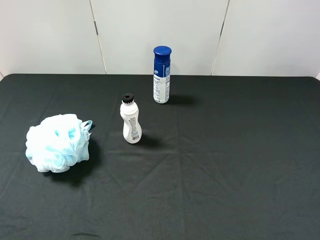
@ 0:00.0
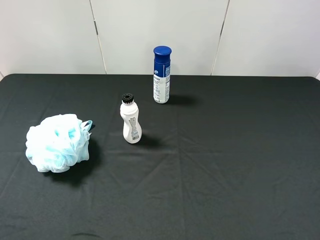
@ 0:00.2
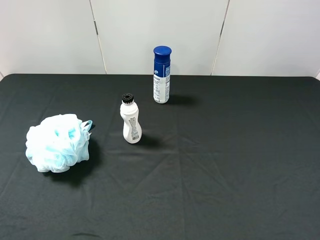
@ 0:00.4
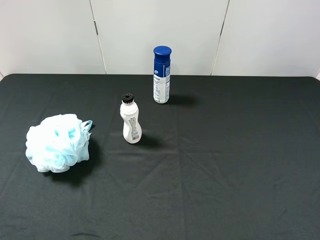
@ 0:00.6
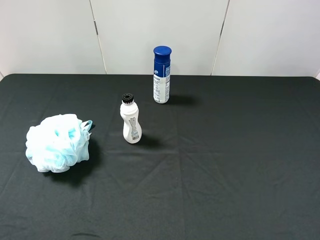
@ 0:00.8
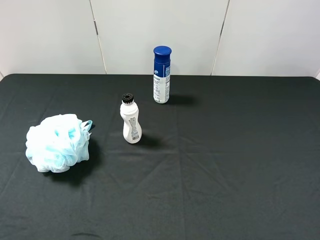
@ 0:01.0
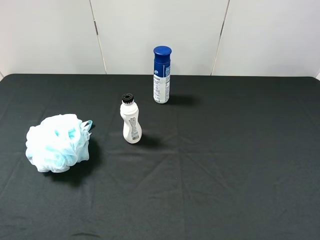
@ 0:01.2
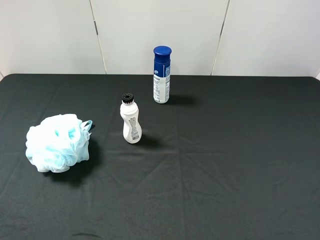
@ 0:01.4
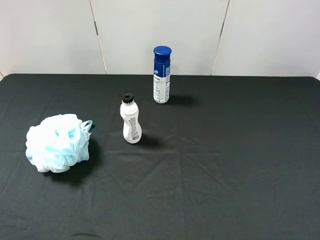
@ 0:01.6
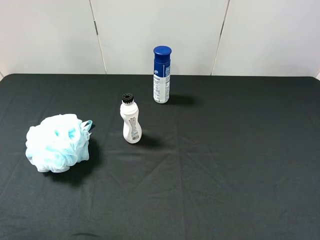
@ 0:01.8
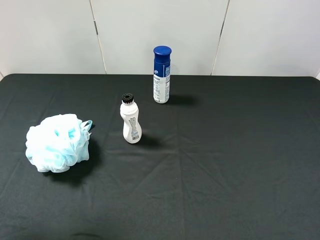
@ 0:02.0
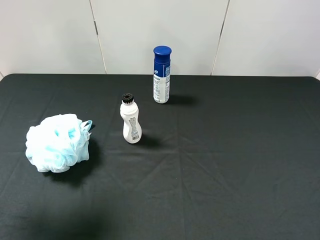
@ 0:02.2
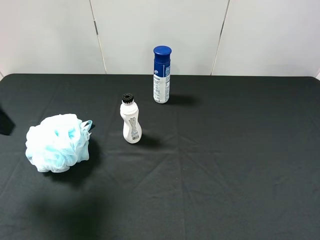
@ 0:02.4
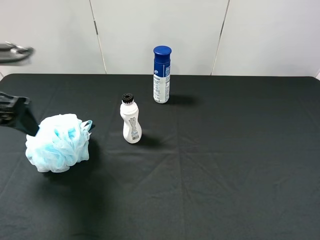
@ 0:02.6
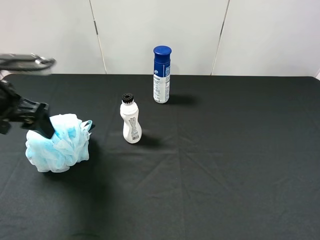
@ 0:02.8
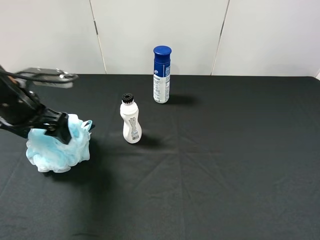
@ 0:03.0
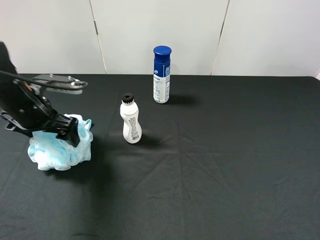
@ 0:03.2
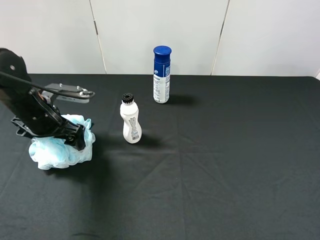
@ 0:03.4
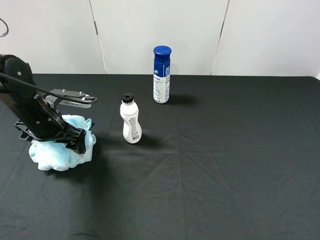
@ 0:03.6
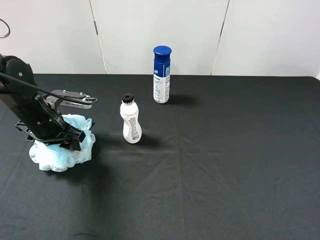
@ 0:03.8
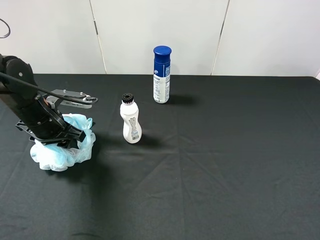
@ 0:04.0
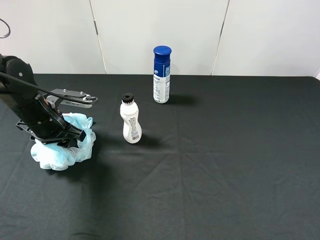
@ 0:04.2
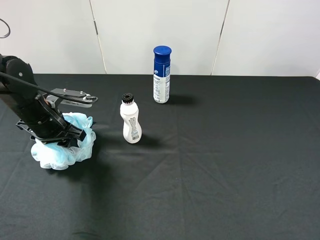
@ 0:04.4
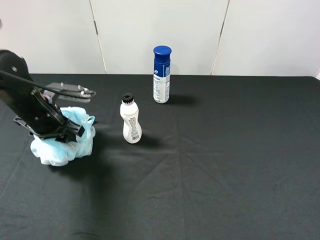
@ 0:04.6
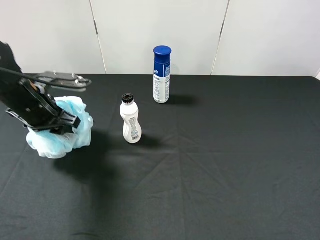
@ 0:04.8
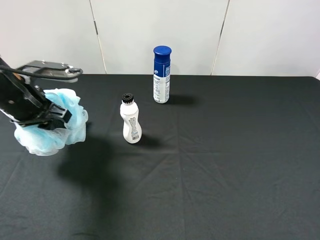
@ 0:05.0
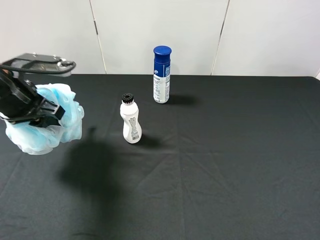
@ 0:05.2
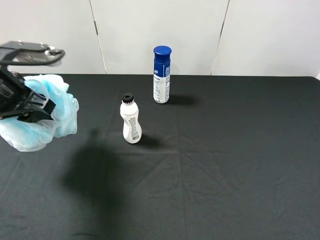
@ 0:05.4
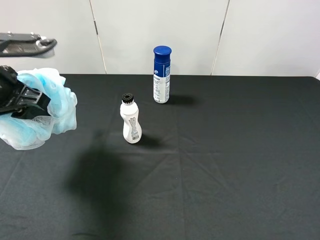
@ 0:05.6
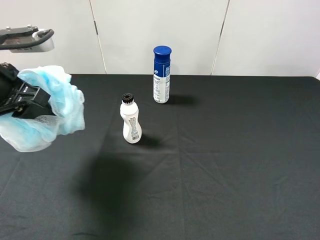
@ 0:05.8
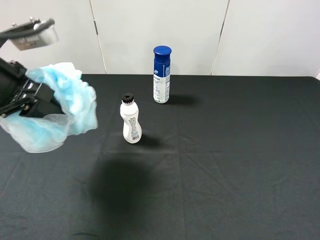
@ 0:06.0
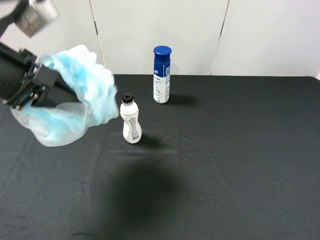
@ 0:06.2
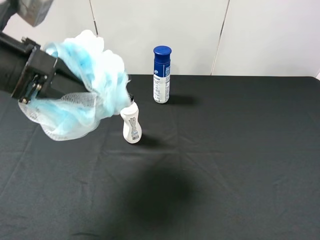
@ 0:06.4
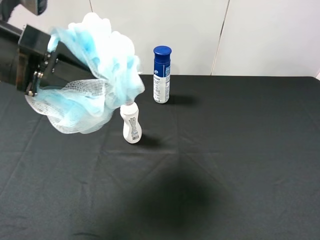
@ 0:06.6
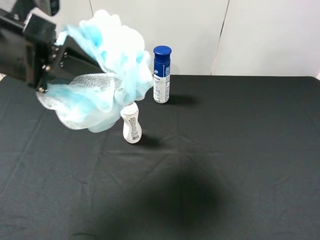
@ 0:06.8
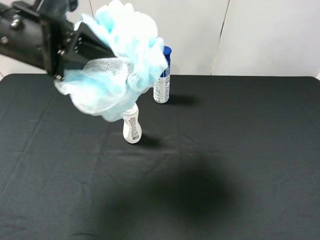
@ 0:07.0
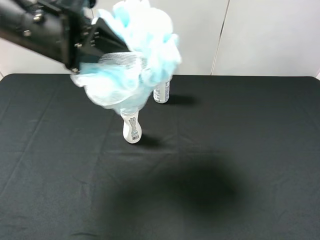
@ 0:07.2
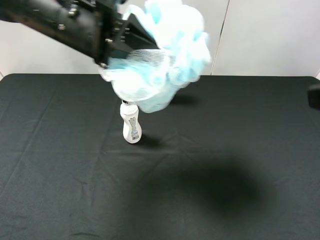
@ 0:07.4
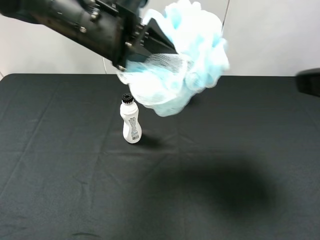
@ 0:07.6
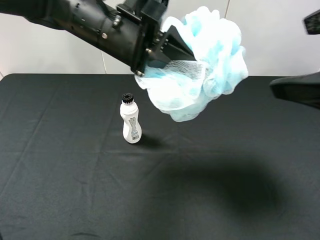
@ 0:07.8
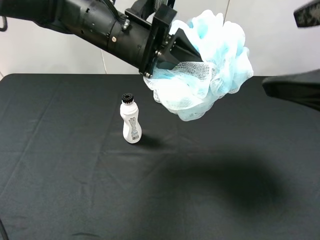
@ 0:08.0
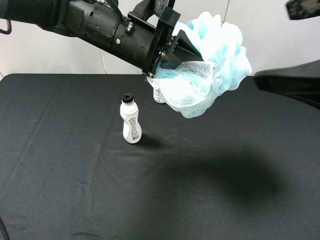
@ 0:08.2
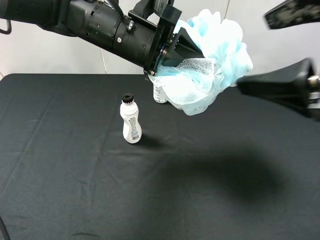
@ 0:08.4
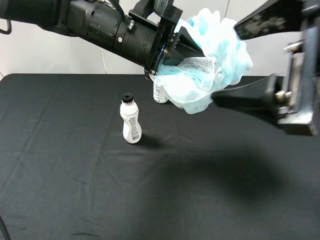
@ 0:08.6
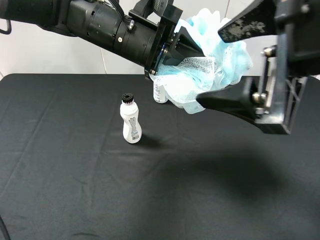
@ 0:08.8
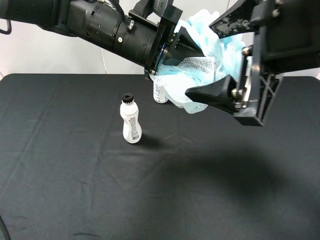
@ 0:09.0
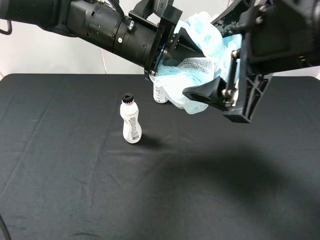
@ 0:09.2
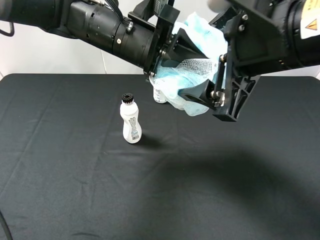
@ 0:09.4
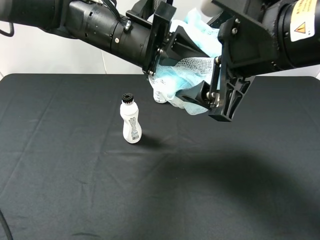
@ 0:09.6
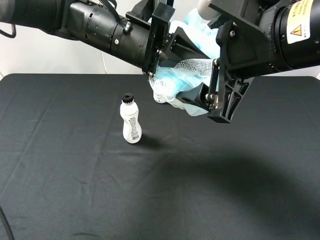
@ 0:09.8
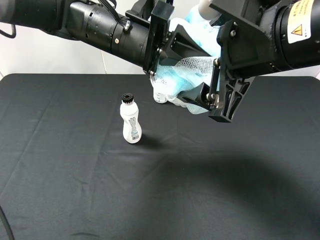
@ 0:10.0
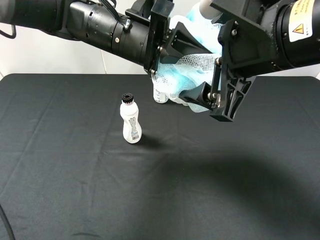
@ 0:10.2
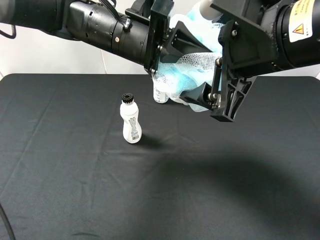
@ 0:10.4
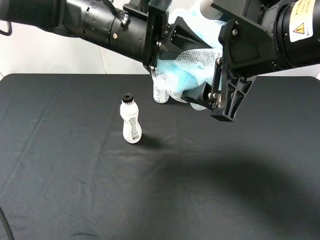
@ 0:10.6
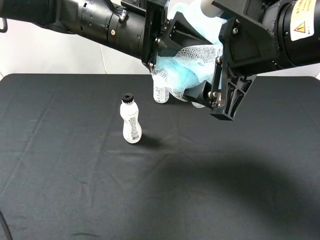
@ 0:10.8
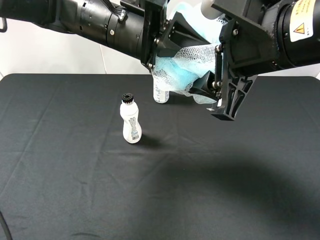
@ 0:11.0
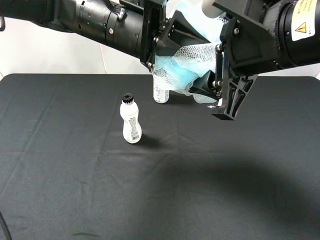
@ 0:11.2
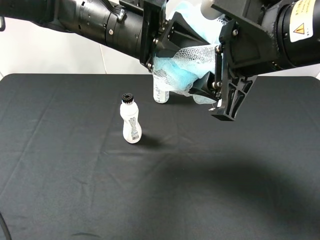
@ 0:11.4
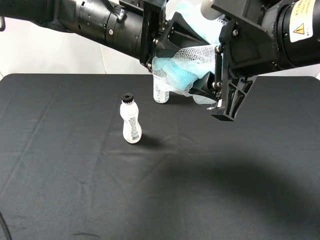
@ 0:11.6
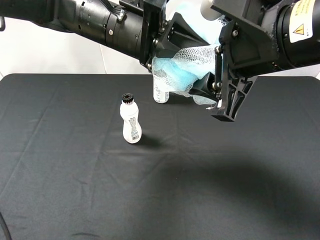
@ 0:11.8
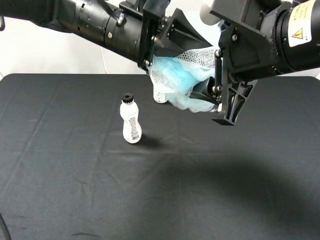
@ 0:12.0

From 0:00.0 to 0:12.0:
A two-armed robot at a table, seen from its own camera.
Task of the whole recording: use the left gripper to pick up the item and transfer it from the left gripper to the right gripper.
From 0:01.6 to 0:03.0: The left gripper moves forward and downward, approximately 25 cm.
From 0:03.0 to 0:04.4: The left gripper travels downward by roughly 5 cm, and closes its fingers.
From 0:04.4 to 0:06.0: The left gripper moves upward and backward, roughly 15 cm.
From 0:06.0 to 0:07.6: The left gripper goes some 15 cm to the right and forward. The right gripper goes about 15 cm upward, forward and to the left.
From 0:07.6 to 0:09.0: The right gripper shifts approximately 10 cm to the left and forward.
From 0:09.0 to 0:10.4: The grippers stay close to where they were, moving slightly.
From 0:10.4 to 0:12.0: The left gripper opens; the right gripper closes up.

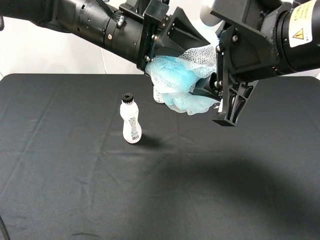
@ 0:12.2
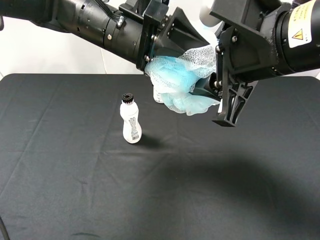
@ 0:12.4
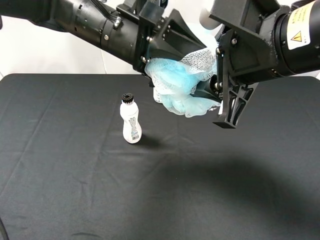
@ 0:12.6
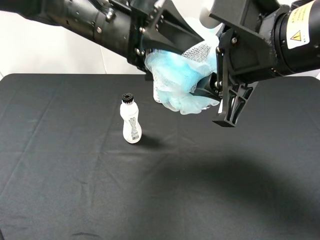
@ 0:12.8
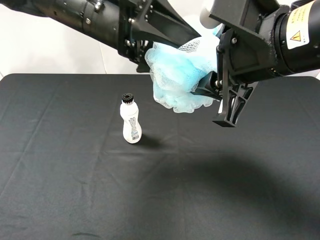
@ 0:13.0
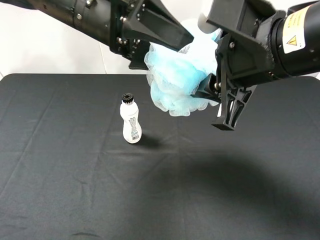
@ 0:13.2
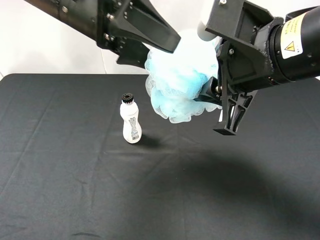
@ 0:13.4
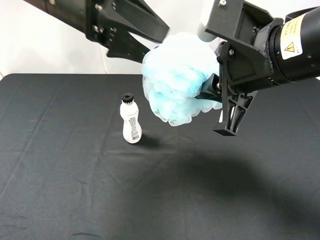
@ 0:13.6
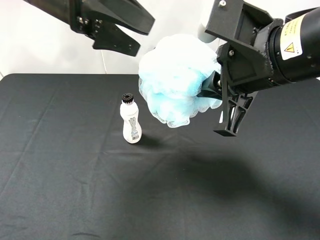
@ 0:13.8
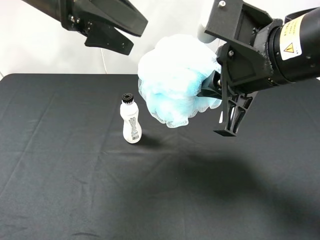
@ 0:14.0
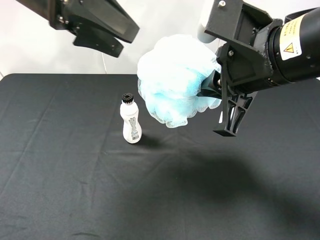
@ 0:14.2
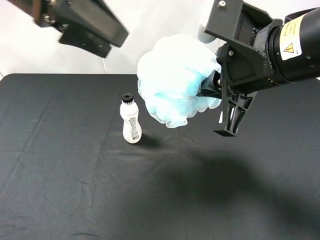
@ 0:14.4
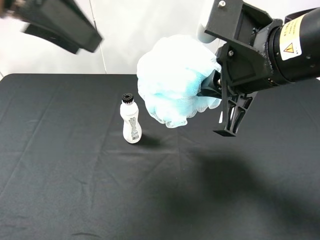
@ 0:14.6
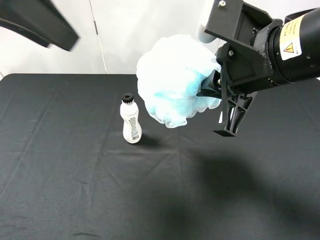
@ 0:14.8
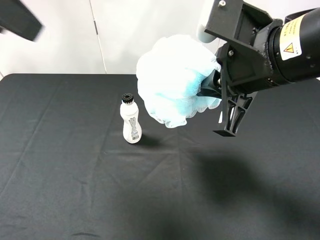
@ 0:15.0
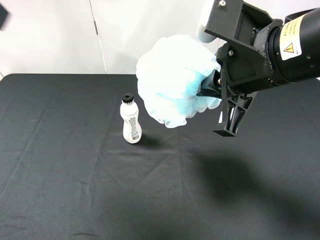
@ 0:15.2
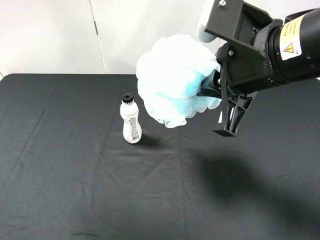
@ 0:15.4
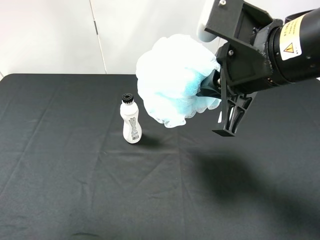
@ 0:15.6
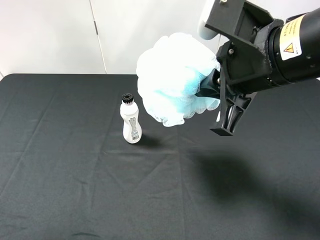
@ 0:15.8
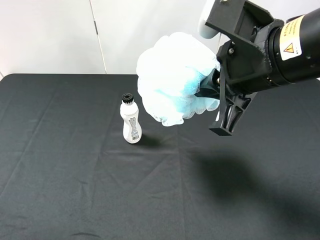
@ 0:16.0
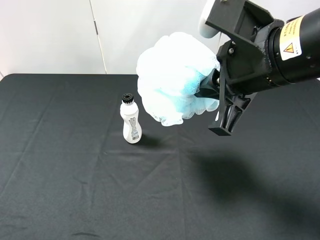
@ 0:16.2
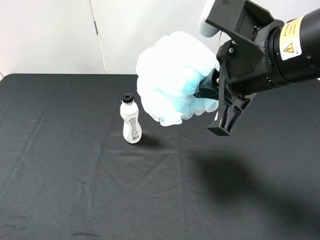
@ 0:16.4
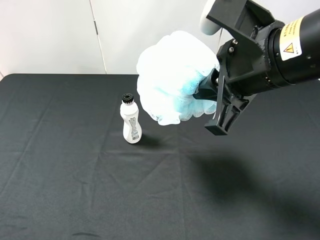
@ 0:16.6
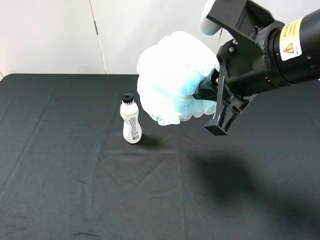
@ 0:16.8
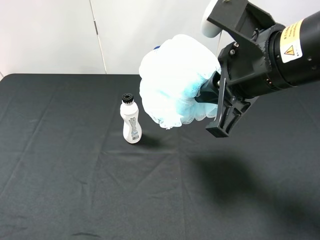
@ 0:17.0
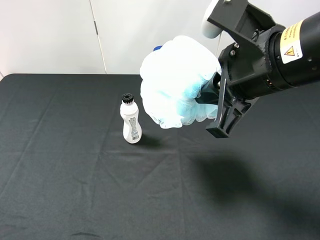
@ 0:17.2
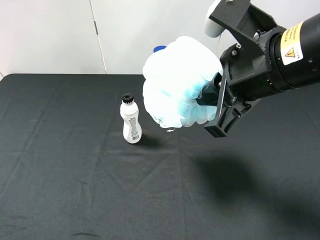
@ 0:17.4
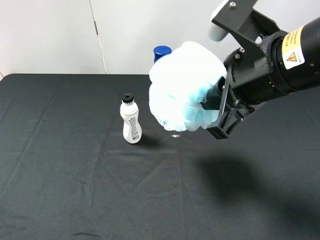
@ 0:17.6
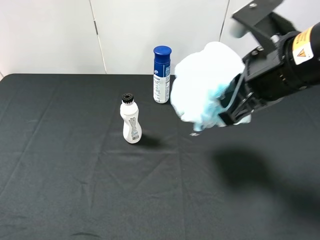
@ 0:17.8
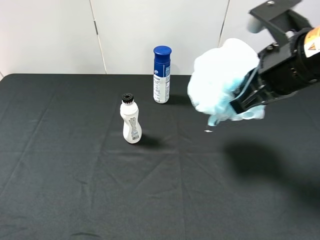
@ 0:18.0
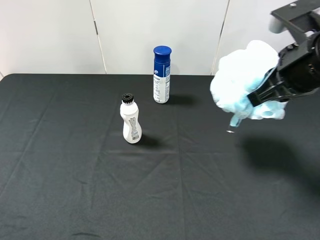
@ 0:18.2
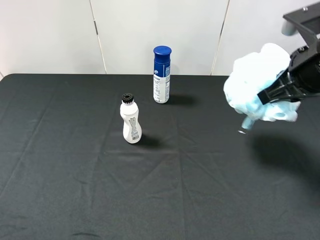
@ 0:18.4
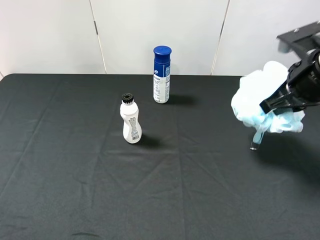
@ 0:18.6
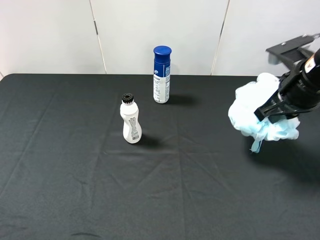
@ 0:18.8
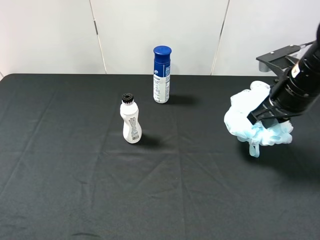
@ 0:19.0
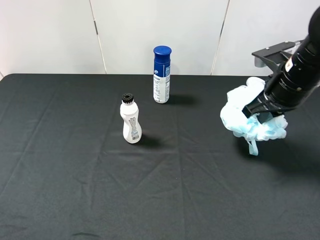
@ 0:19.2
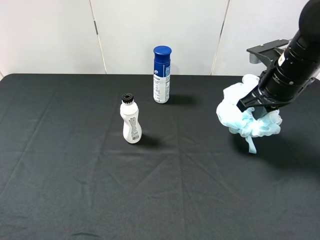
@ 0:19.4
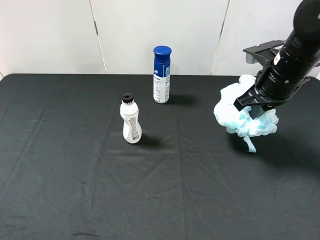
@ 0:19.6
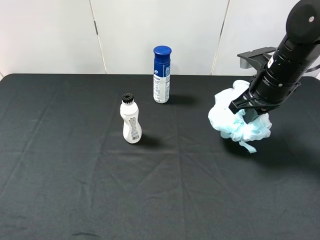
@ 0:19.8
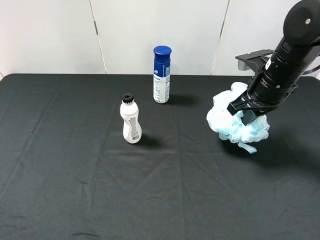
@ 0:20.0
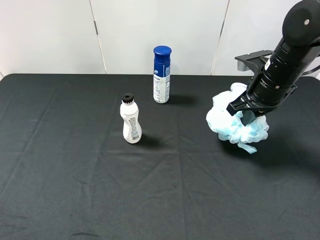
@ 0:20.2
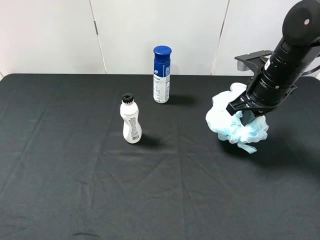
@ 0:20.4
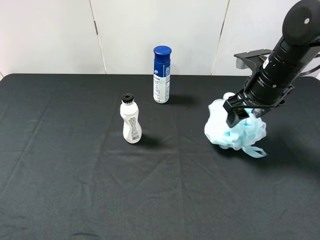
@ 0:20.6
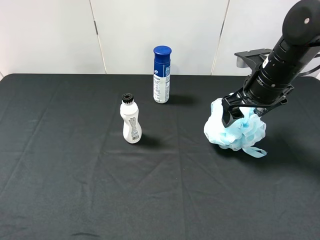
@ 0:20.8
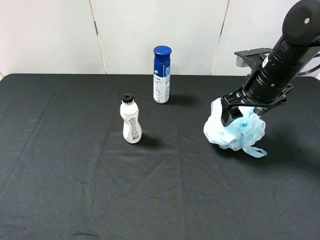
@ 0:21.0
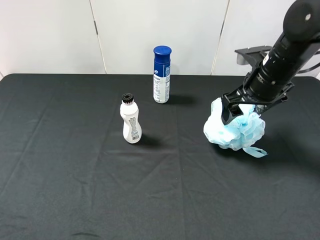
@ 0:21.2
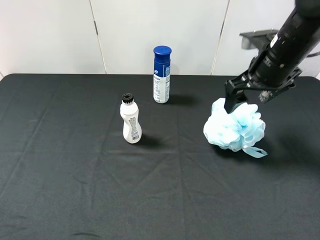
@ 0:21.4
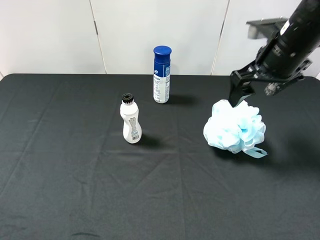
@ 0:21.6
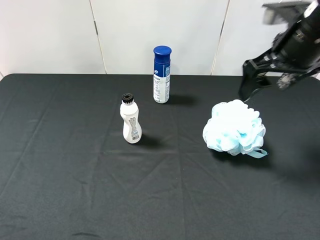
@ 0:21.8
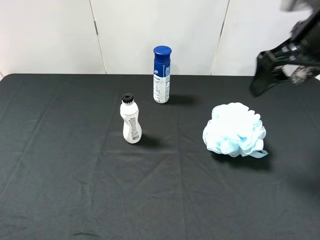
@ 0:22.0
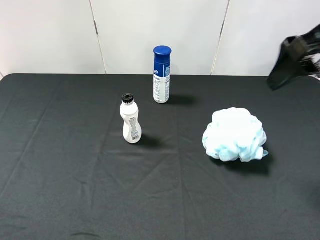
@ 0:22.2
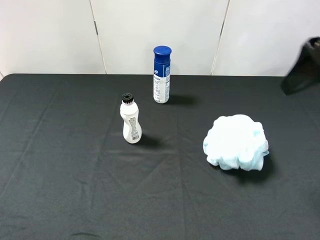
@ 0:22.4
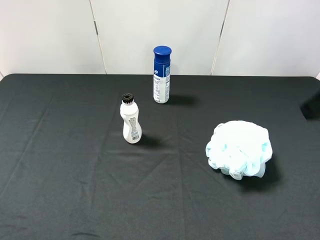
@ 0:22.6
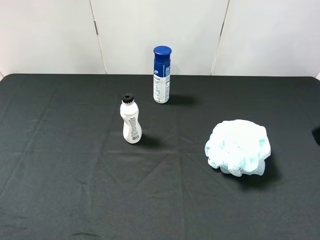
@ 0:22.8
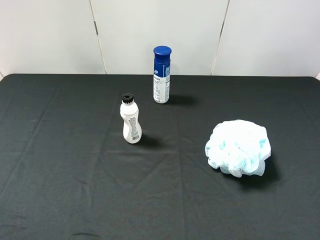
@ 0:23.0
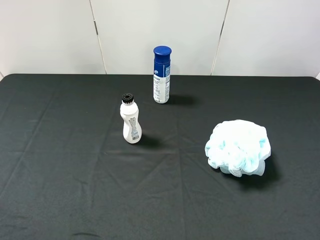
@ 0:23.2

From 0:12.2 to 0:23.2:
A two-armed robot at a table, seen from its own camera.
Task of the whole recording: use the left gripper to pick up the item and transfer it from the left gripper to the right gripper.
From 0:12.2 to 0:13.8: The left gripper shifts some 10 cm to the left and upward. Meanwhile the right gripper closes its fingers.
From 0:13.8 to 0:15.4: The left gripper travels backward, to the left and upward by some 25 cm.
From 0:15.4 to 0:17.0: The left gripper is displaced downward and backward by roughly 20 cm.
From 0:17.0 to 0:18.4: The right gripper goes approximately 10 cm to the right and forward.
From 0:18.4 to 0:20.0: The right gripper goes roughly 10 cm forward and downward.
From 0:20.0 to 0:21.6: The right gripper travels upward by about 5 cm, and opens.
From 0:21.6 to 0:23.2: The right gripper moves backward, approximately 25 cm.
